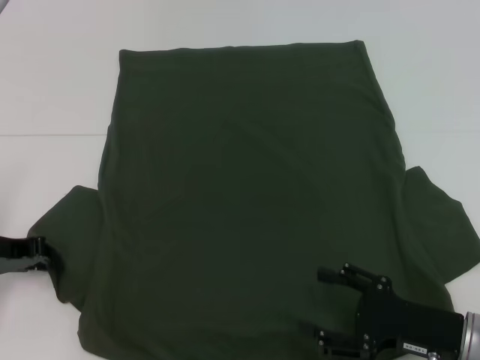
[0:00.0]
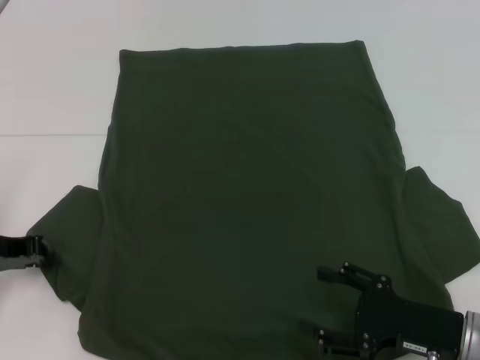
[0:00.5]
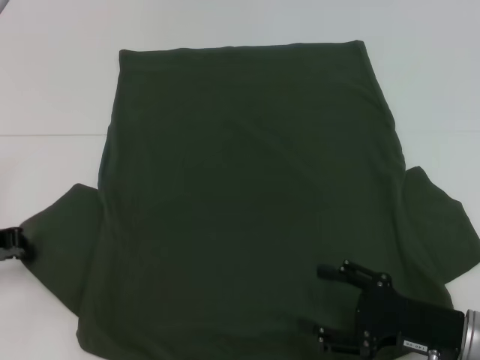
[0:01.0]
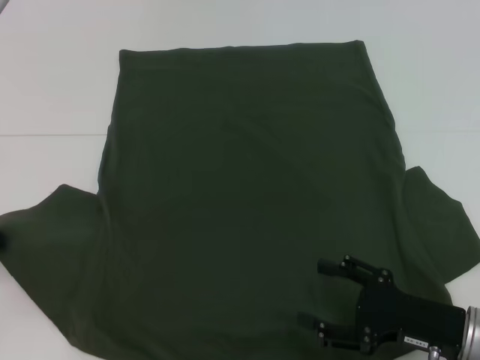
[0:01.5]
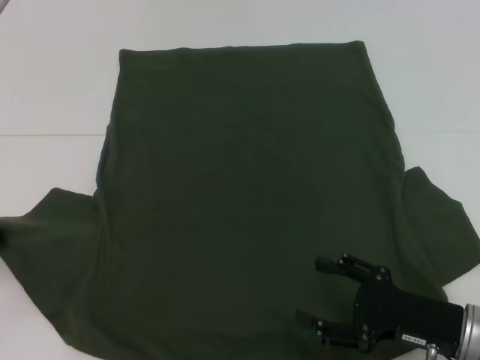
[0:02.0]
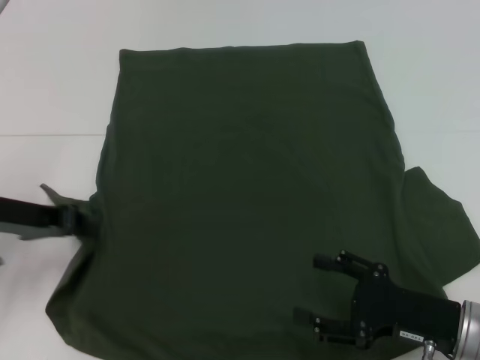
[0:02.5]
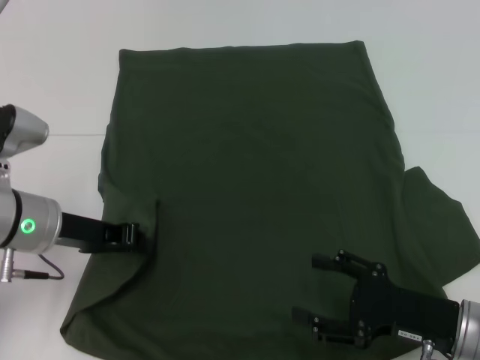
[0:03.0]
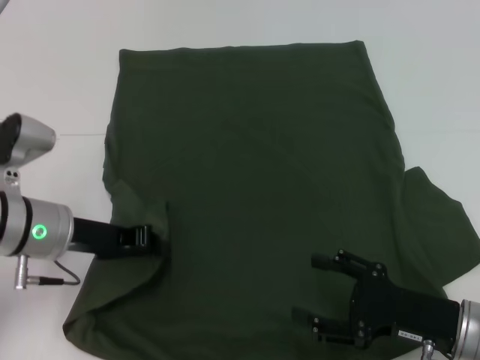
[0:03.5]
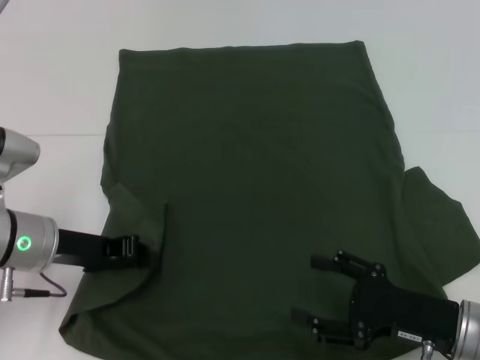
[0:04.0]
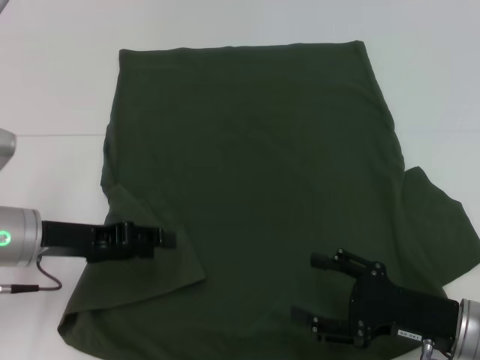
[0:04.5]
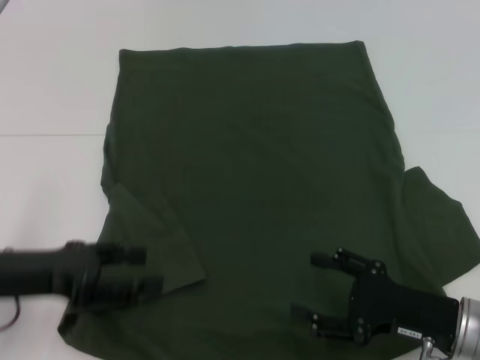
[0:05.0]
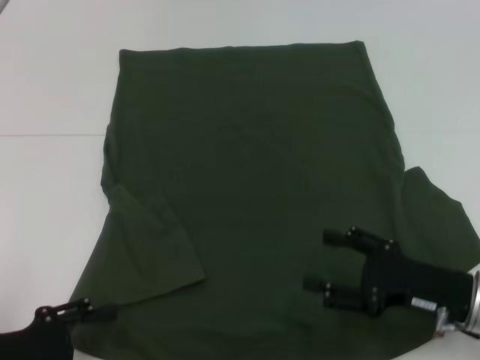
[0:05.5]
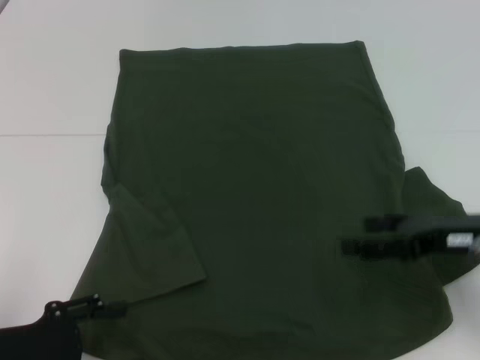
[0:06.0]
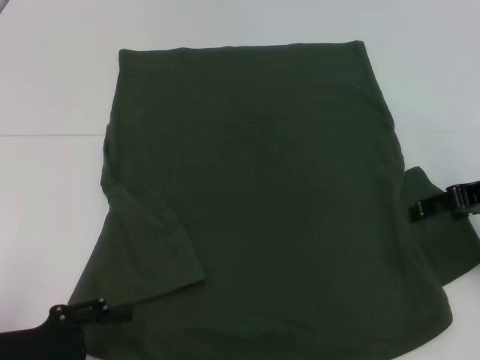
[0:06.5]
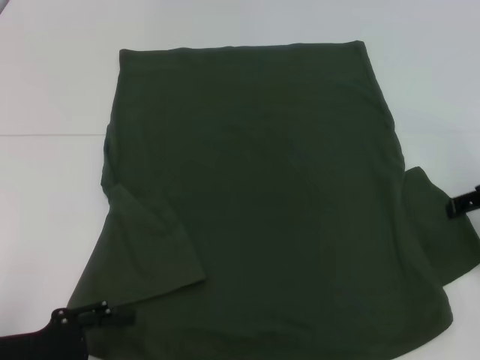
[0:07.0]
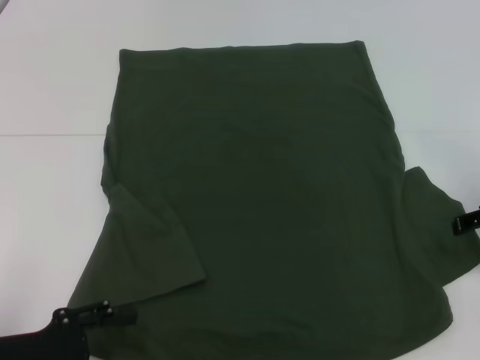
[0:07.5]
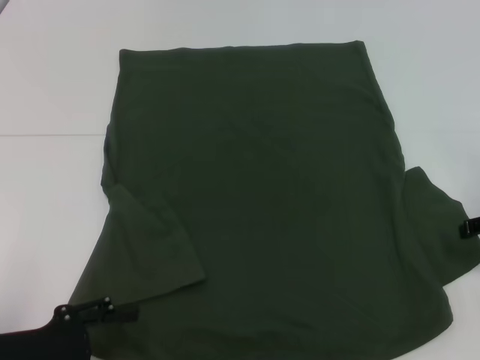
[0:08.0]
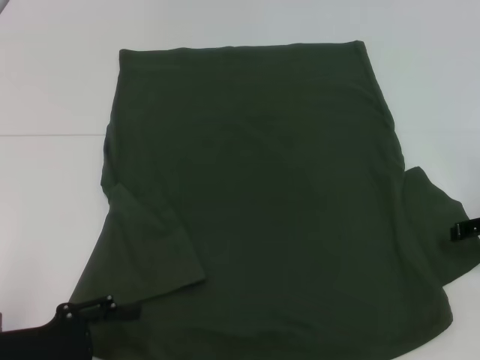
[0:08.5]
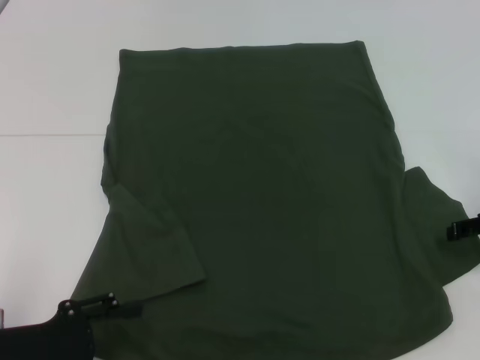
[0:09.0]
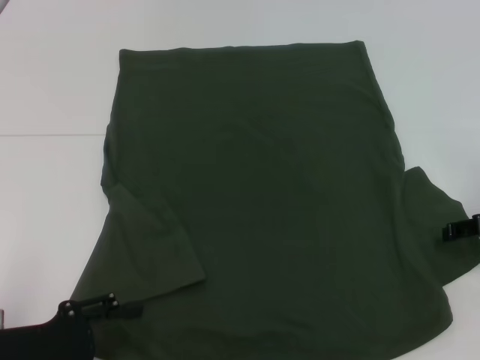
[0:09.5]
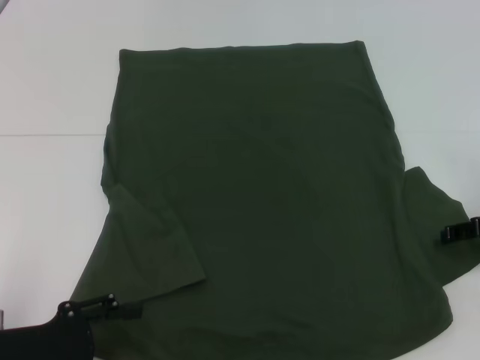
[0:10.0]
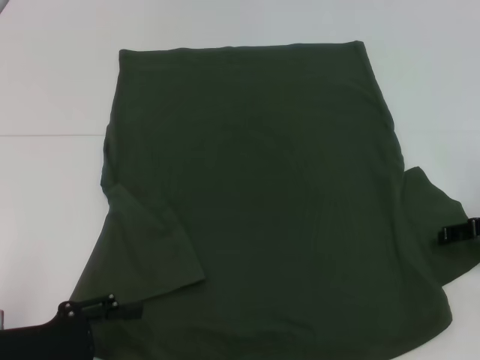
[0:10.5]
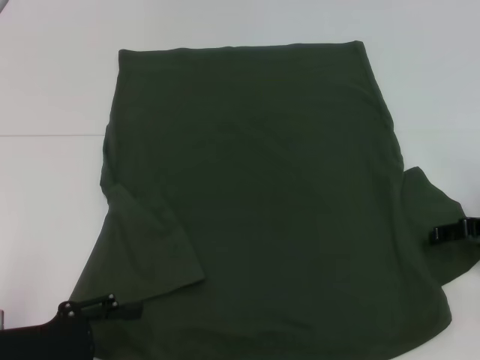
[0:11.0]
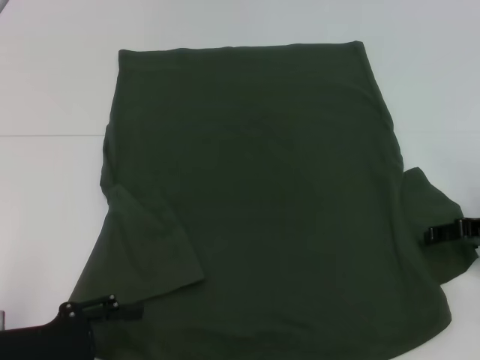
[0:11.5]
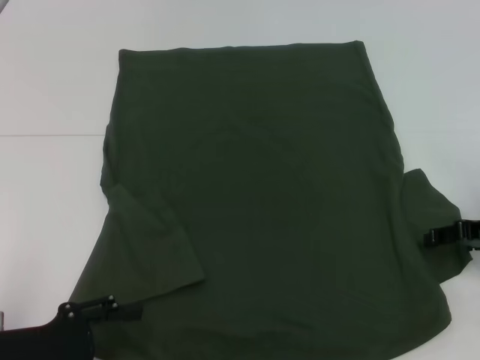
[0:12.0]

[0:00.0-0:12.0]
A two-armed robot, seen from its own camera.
Step, 0:00.0 to 0:04.0: Fold the bottom left sleeve with your left hand.
0:00.0 to 0:02.0: The left gripper moves roughly 5 cm, and closes its fingers.
0:02.0 to 0:04.0: The left gripper shifts approximately 15 cm to the right.
0:04.0 to 0:06.0: The left gripper shifts roughly 15 cm backward and to the left, and opens up. The right gripper moves upward and forward, roughly 10 cm.
0:06.0 to 0:08.0: The right gripper shifts some 10 cm to the right and forward.
0:10.0 to 0:12.0: The grippers make only small movements.

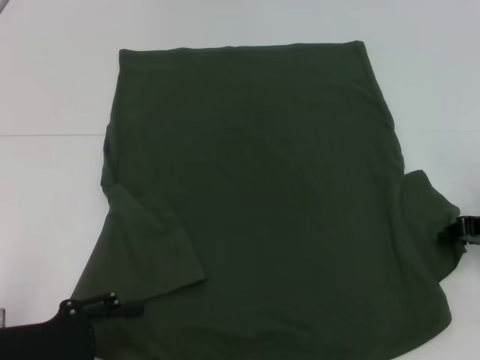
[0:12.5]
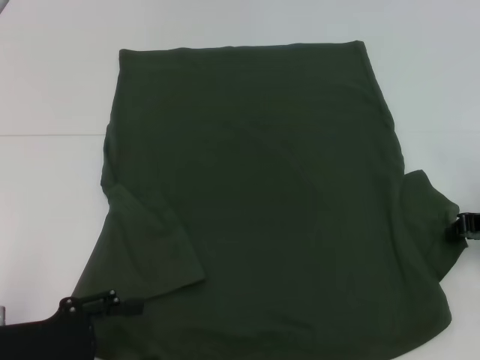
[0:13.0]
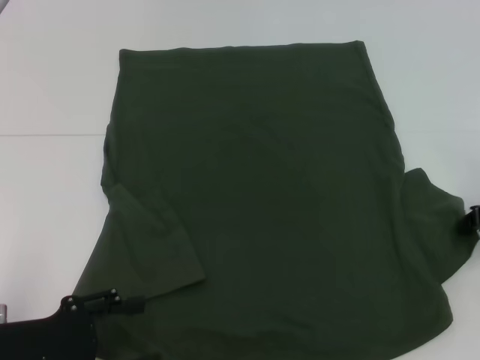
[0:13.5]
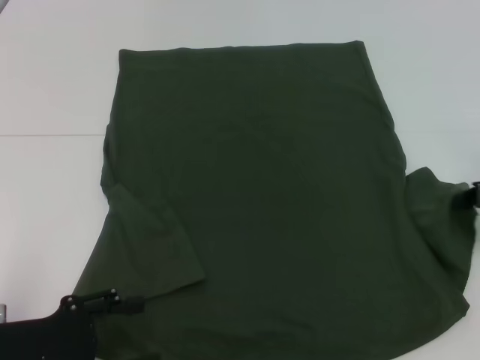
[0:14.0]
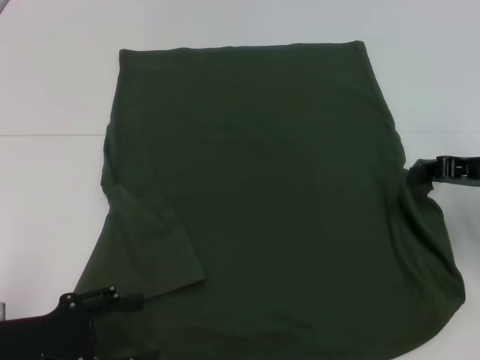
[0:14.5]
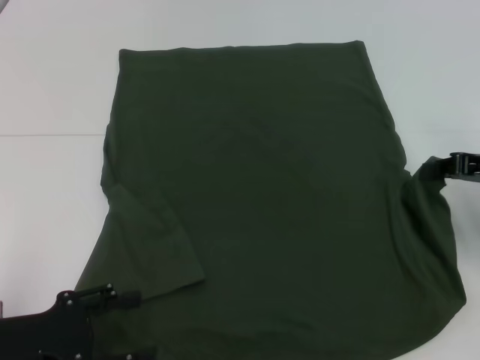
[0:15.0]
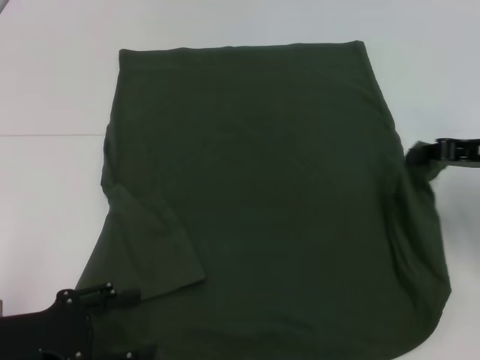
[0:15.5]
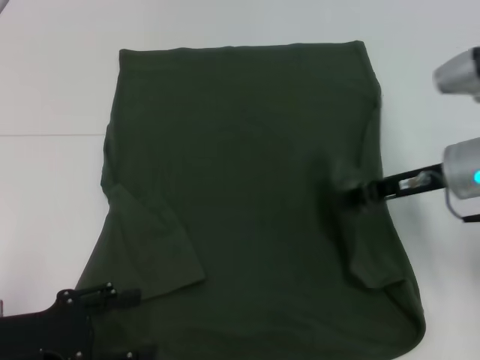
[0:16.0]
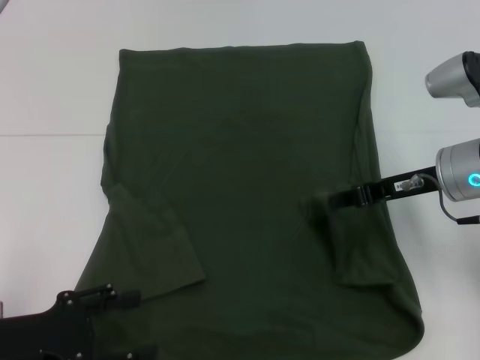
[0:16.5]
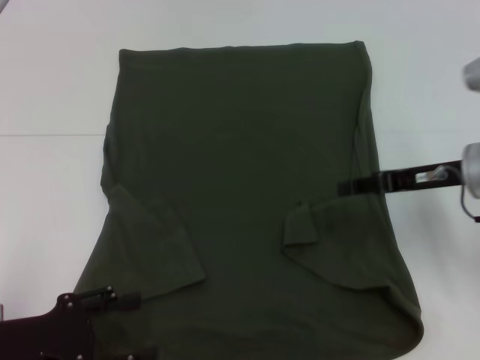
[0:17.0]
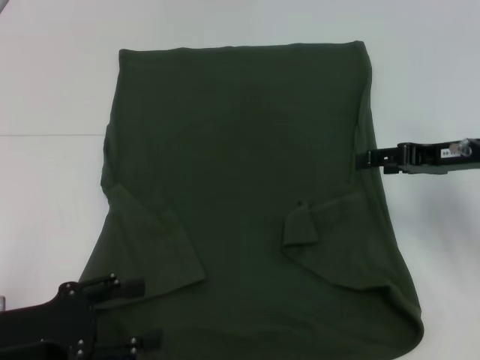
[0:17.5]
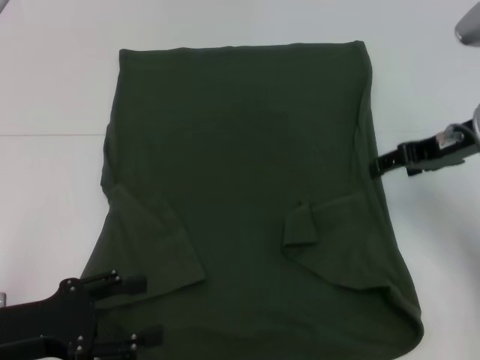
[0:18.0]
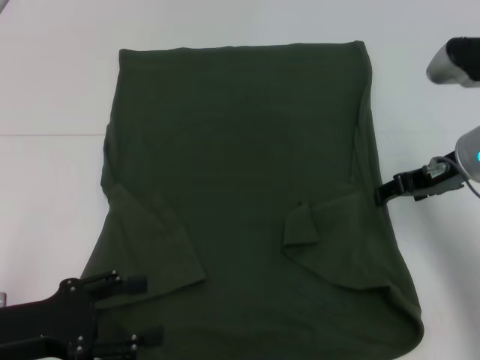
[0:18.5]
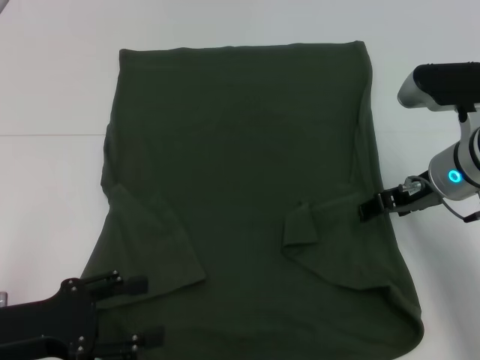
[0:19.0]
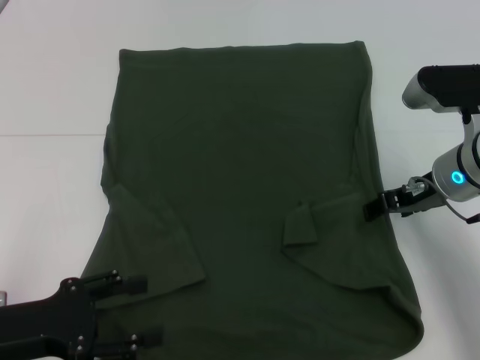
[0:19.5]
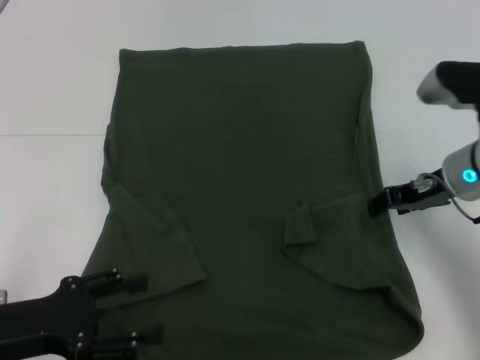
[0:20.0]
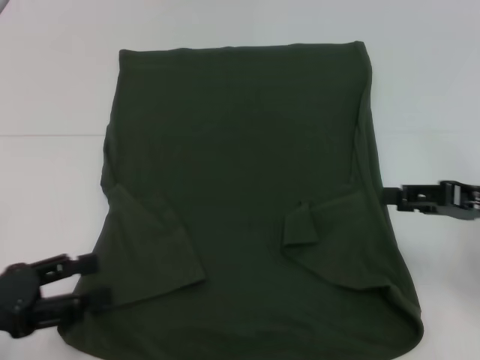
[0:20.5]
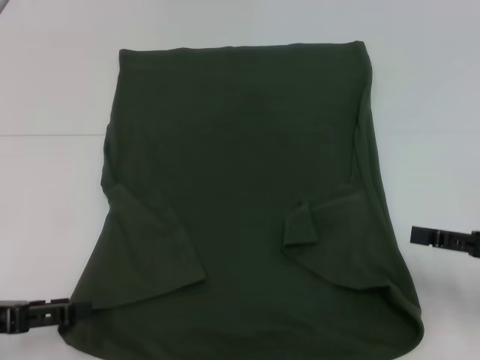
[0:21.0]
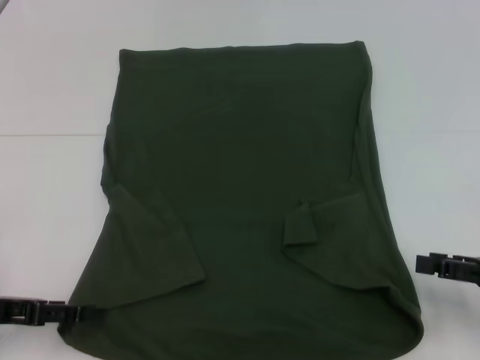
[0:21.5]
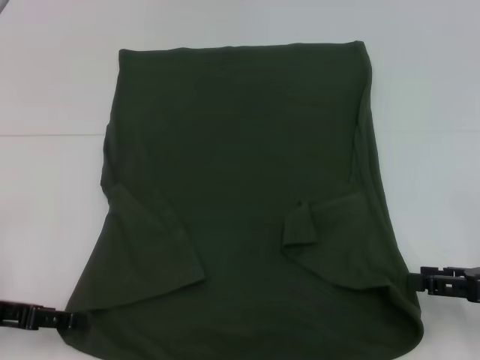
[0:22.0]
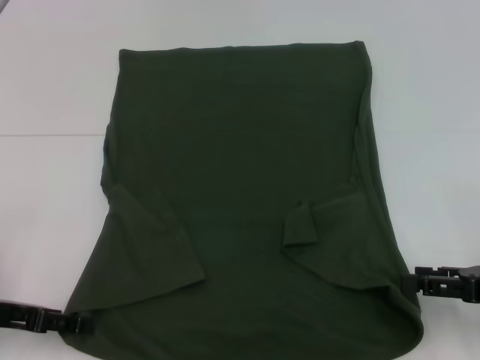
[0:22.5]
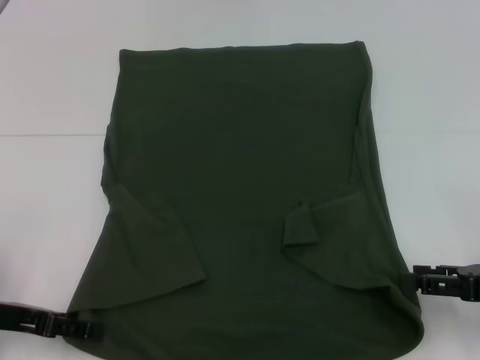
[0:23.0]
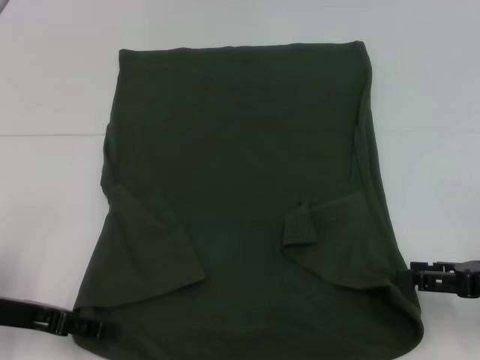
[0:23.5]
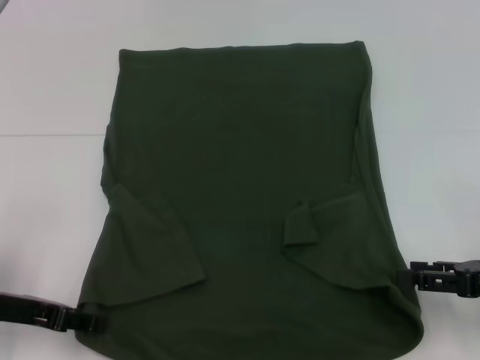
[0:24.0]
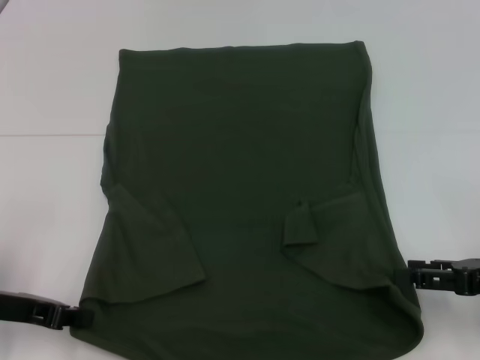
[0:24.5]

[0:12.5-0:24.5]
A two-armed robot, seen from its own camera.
Step, 0:12.5 to 0:16.5: Fold the bottom right sleeve with your right hand.
Step, 0:17.0 to 0:24.5: Grab the bottom left corner with your left hand.
0:12.5 to 0:14.5: The right gripper closes.
0:14.5 to 0:16.5: The right gripper travels to the left by roughly 10 cm.
0:16.5 to 0:18.5: The right gripper opens up.
0:18.5 to 0:20.5: The right gripper moves backward and to the right, roughly 10 cm.
0:20.5 to 0:22.5: The left gripper is displaced forward by about 5 cm. Meanwhile the right gripper moves backward and downward, about 5 cm.
0:22.5 to 0:24.5: The left gripper closes up.

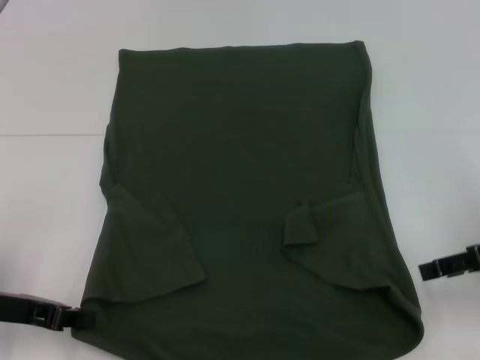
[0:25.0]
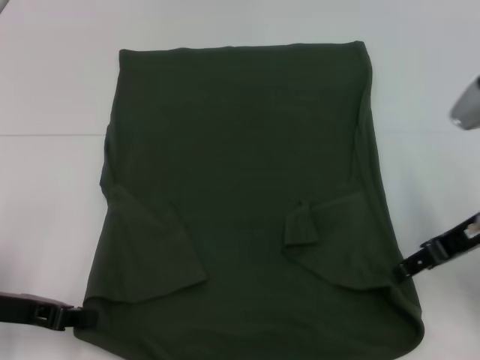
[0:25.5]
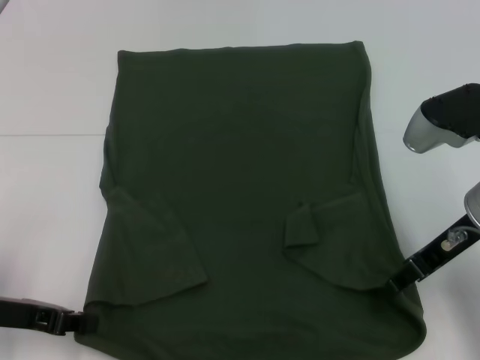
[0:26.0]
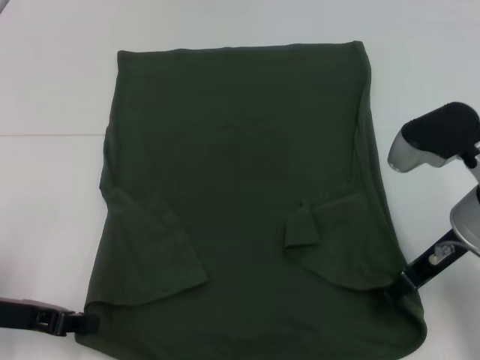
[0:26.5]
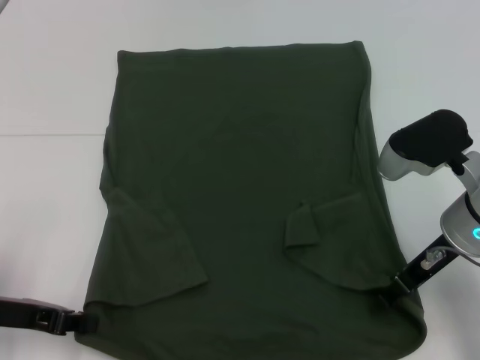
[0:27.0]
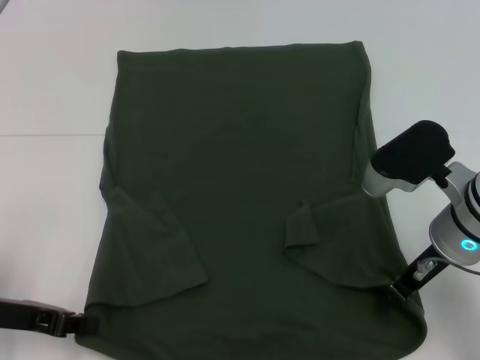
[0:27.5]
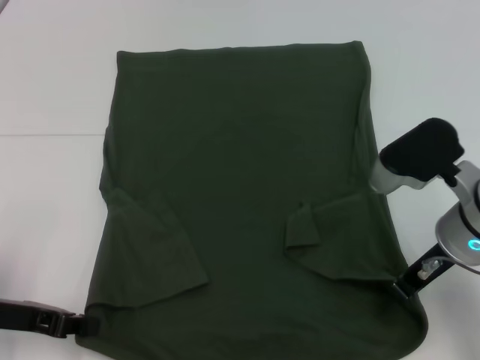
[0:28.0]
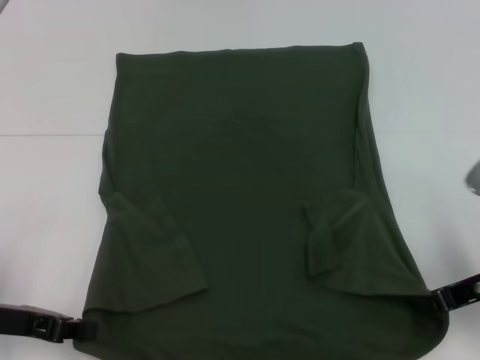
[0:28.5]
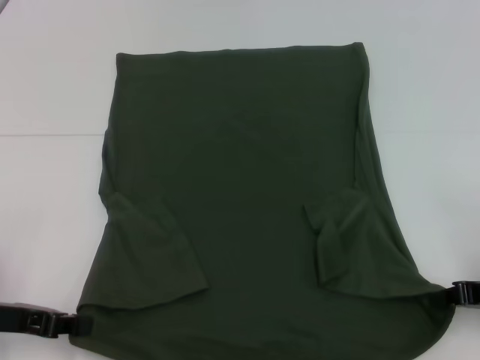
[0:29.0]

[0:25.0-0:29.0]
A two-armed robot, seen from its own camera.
Step, 0:25.0 to 0:27.5: Grab the bottom right corner with your right hand.
0:25.0 to 0:27.0: The right gripper shifts approximately 10 cm to the left.
0:27.0 to 0:29.0: The right gripper shifts approximately 15 cm to the right and backward, and closes up.
